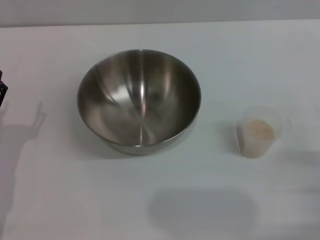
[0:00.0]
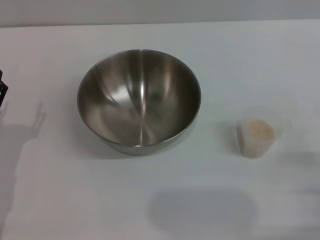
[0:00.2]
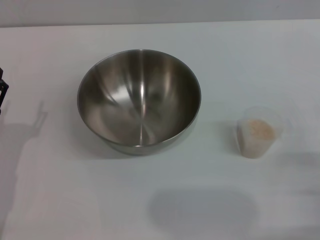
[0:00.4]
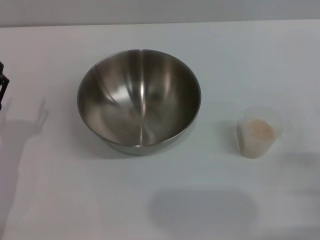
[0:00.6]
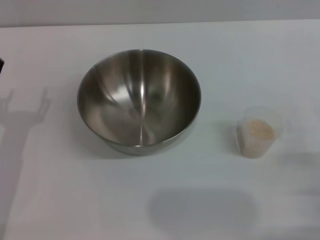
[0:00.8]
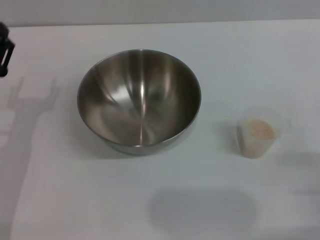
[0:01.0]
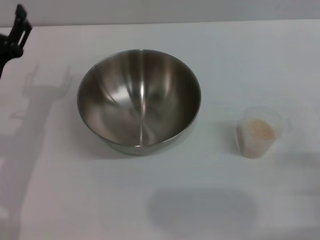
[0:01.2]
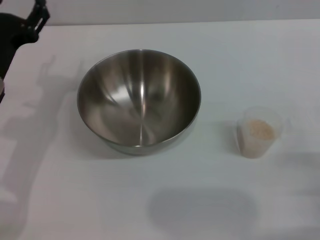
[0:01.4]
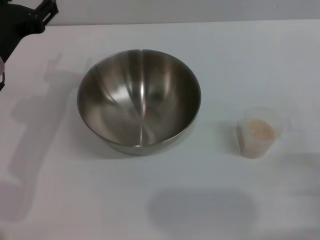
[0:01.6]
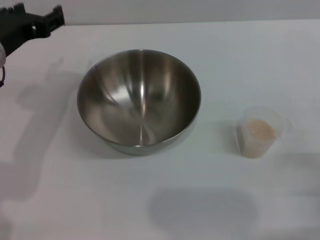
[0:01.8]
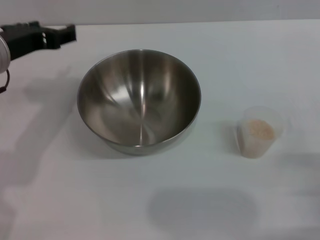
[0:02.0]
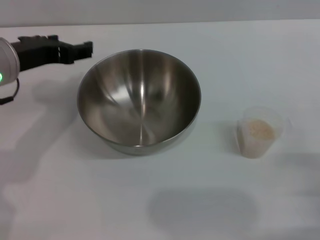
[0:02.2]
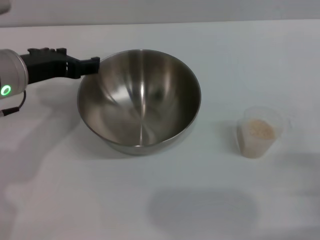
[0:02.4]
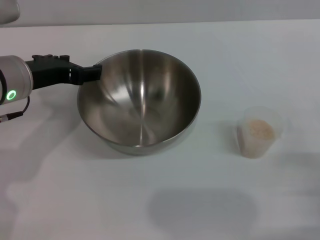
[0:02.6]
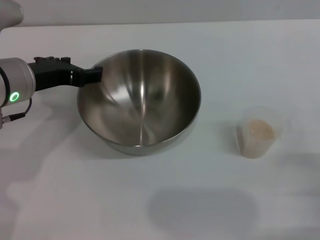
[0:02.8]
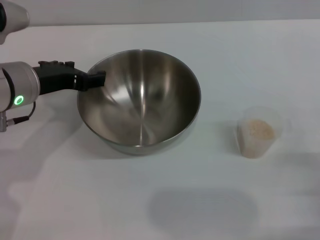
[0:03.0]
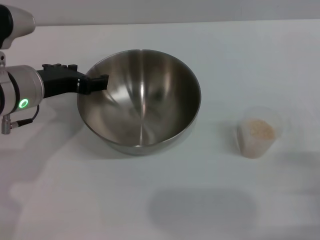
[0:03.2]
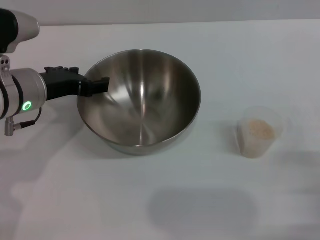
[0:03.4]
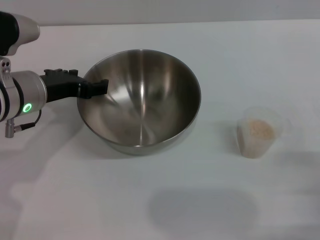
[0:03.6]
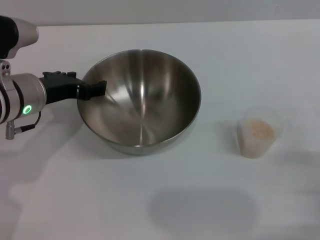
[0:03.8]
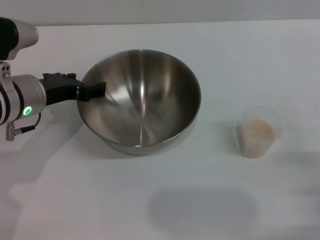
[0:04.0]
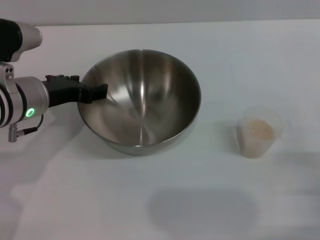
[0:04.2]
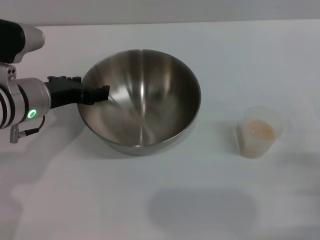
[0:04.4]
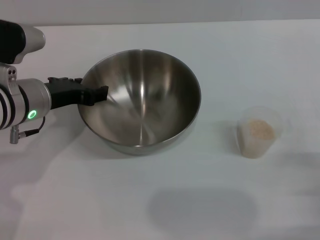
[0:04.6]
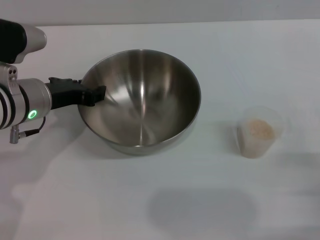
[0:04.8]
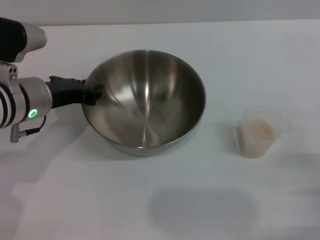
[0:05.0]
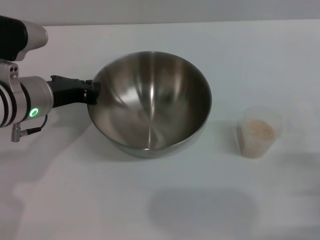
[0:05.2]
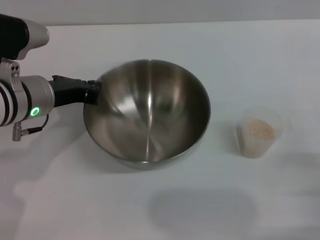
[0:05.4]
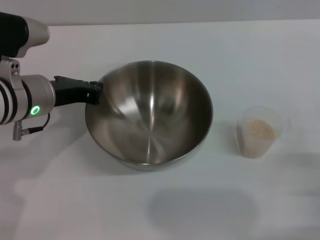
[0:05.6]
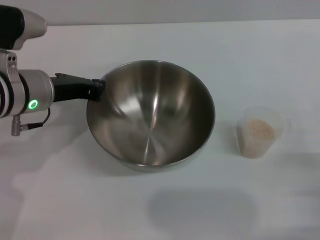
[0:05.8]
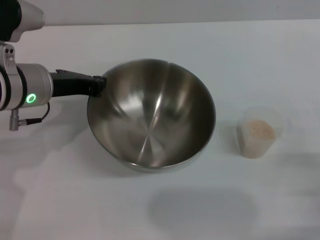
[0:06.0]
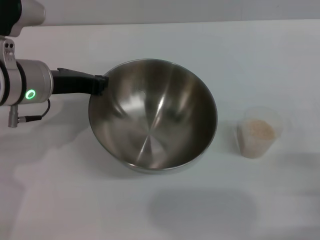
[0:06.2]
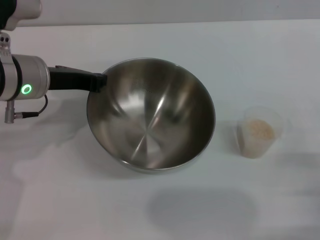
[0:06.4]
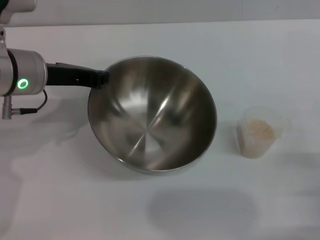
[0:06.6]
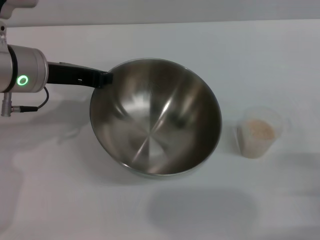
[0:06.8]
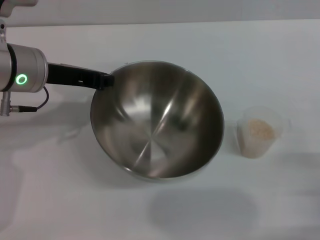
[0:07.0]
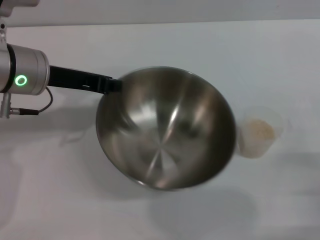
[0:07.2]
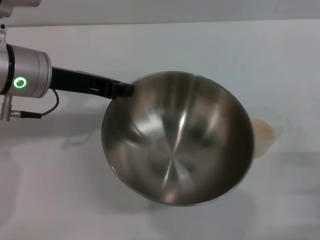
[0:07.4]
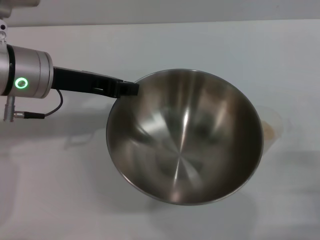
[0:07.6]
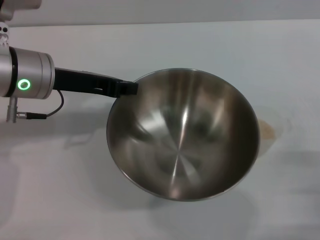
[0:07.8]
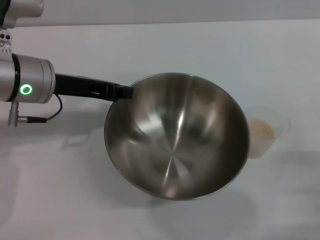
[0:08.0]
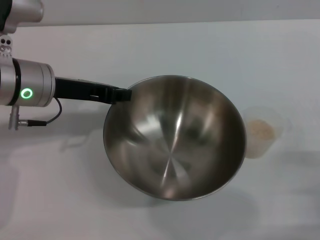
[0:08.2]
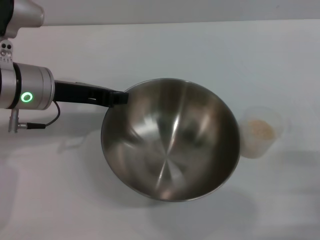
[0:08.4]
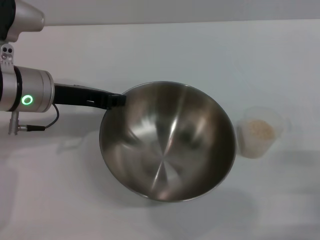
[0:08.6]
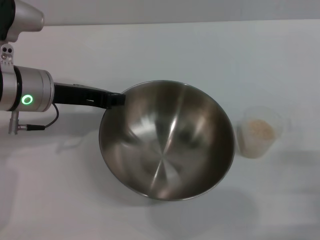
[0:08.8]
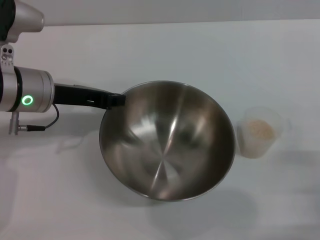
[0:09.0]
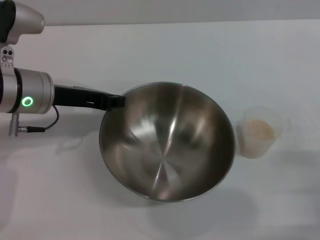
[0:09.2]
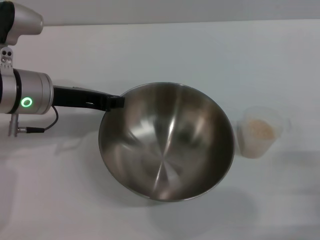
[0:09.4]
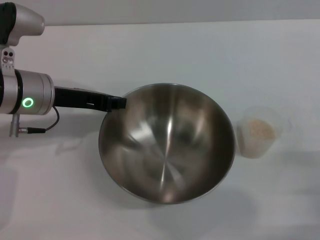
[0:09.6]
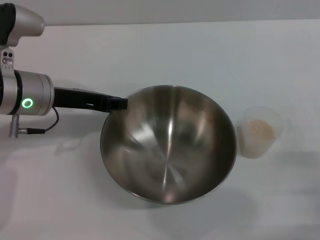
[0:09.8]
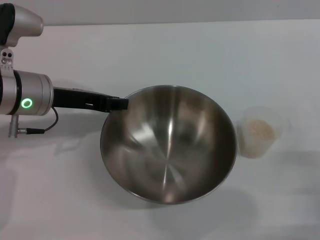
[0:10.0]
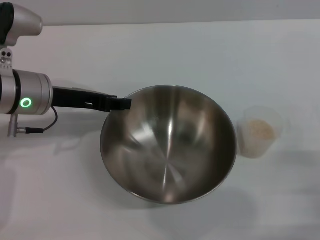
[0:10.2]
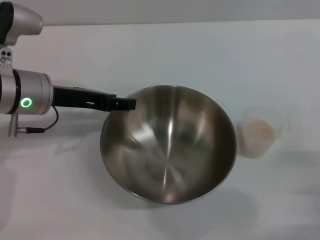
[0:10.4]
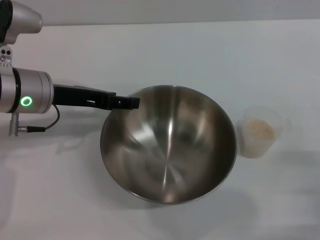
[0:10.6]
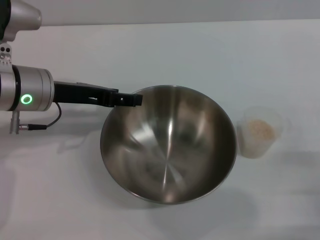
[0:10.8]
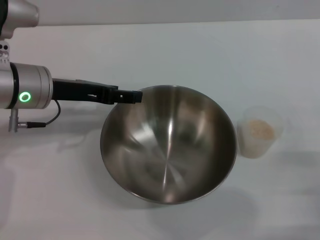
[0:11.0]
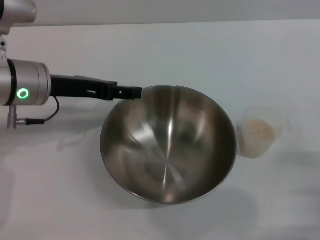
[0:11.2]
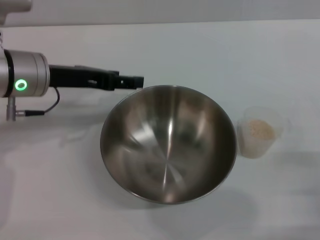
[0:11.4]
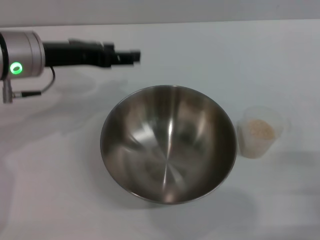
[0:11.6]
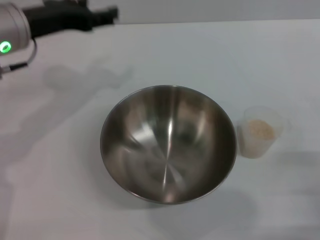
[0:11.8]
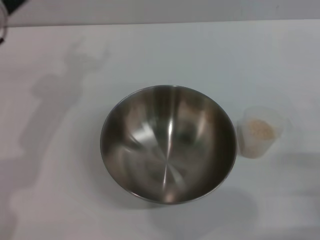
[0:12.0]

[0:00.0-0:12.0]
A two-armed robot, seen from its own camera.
Task of the whole recording: Place the bowl in the middle of the table with one hand and pour the rice from the grain cup into it with the other hand.
Step, 0:00.0 to 0:07.2: Pick up the bowl with the left gripper.
0:00.0 to 0:01.6: The left gripper travels upward, forward and to the right by approximately 15 cm.
0:03.0 to 0:04.4: The grippers move only a little.
0:04.4 to 0:06.0: The left gripper closes up.
0:09.0 to 0:10.4: The left gripper opens up.
0:10.4 to 0:12.0: The left gripper heads upward, covering about 5 cm, and opens.

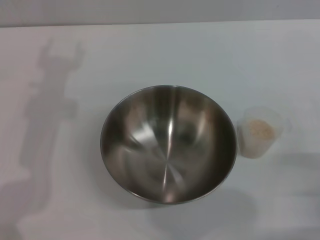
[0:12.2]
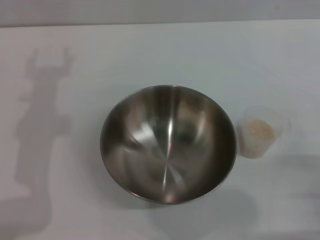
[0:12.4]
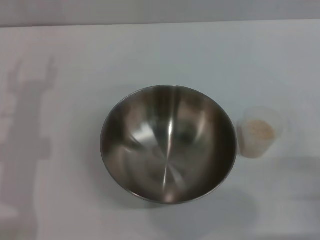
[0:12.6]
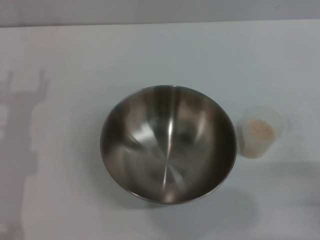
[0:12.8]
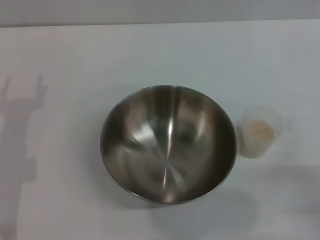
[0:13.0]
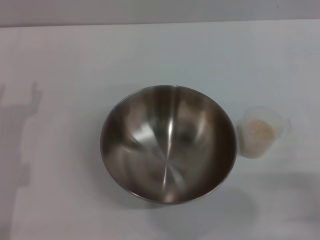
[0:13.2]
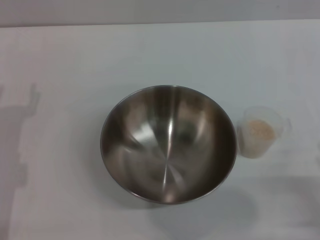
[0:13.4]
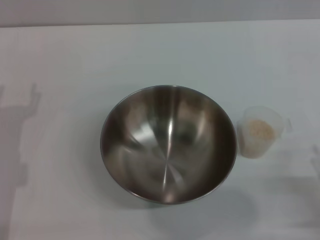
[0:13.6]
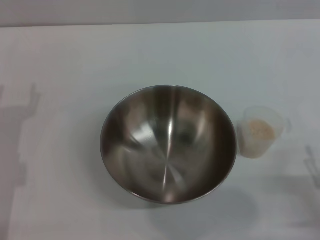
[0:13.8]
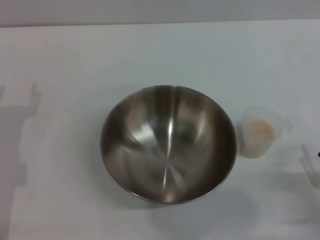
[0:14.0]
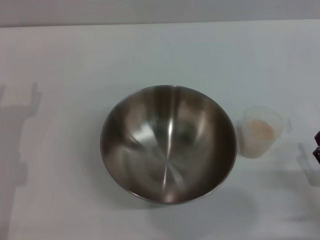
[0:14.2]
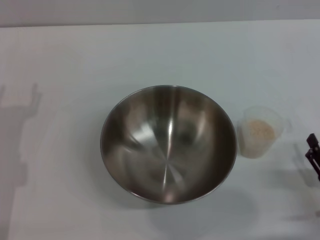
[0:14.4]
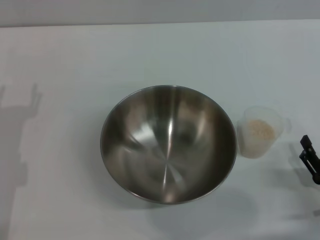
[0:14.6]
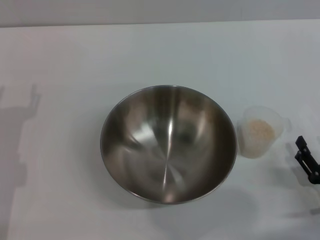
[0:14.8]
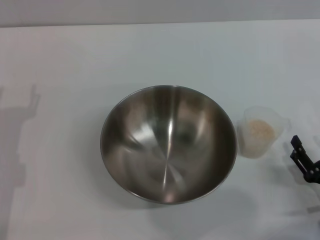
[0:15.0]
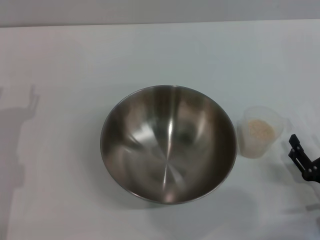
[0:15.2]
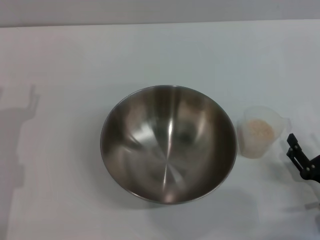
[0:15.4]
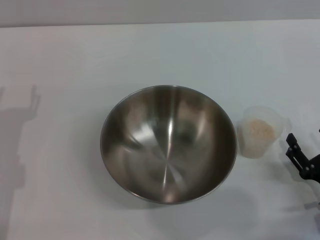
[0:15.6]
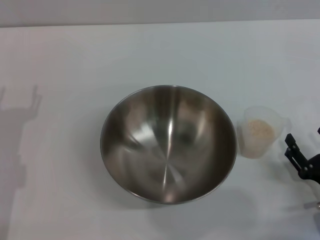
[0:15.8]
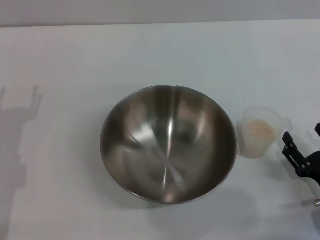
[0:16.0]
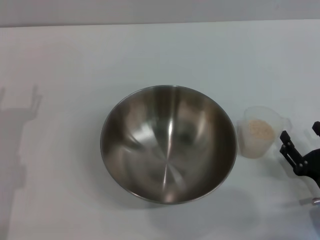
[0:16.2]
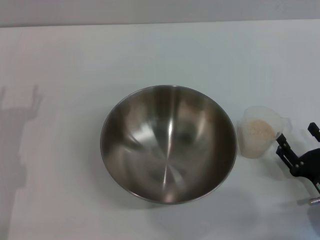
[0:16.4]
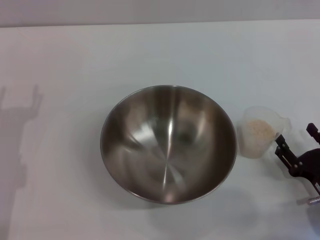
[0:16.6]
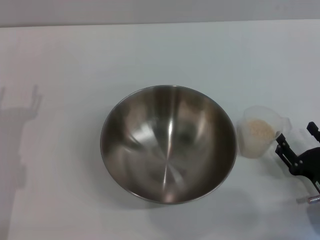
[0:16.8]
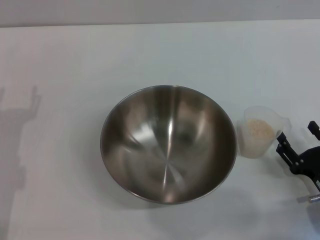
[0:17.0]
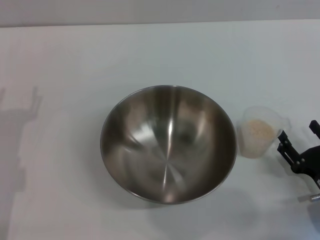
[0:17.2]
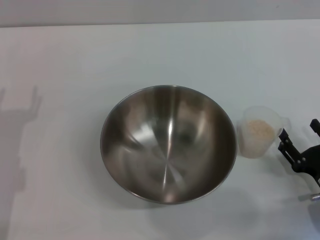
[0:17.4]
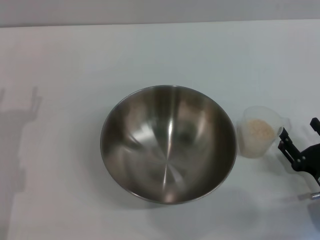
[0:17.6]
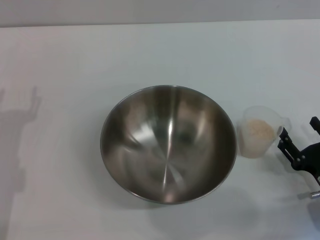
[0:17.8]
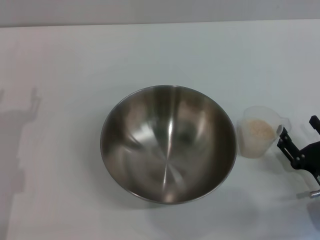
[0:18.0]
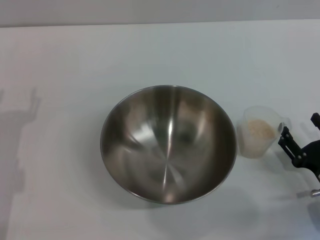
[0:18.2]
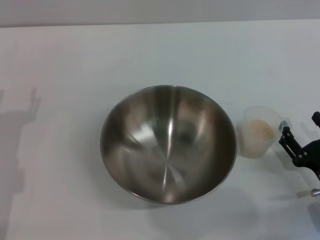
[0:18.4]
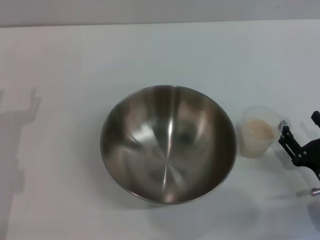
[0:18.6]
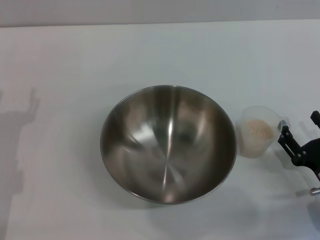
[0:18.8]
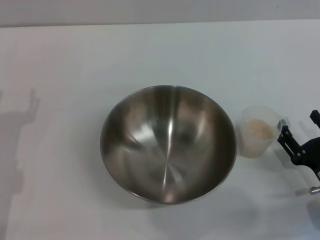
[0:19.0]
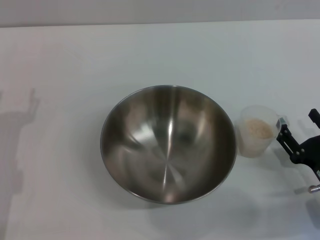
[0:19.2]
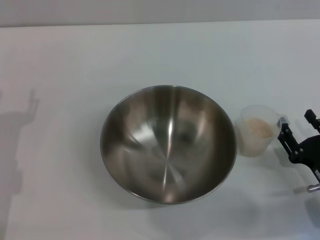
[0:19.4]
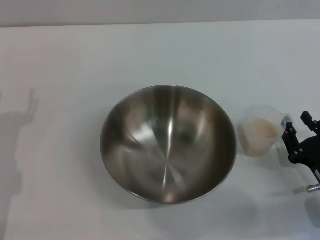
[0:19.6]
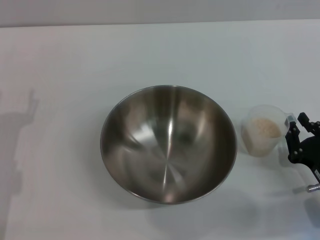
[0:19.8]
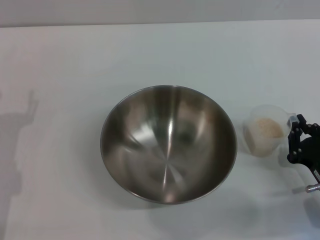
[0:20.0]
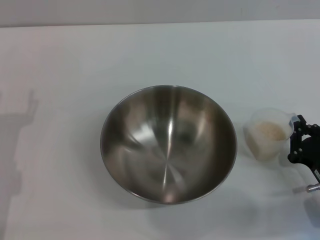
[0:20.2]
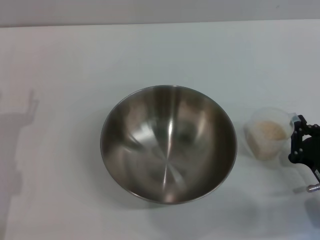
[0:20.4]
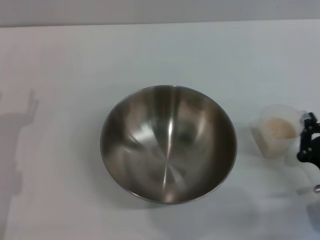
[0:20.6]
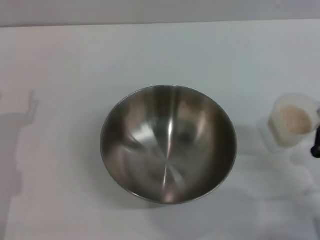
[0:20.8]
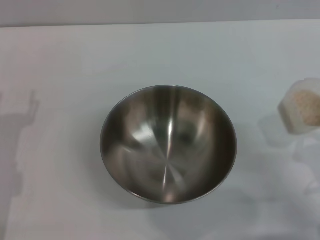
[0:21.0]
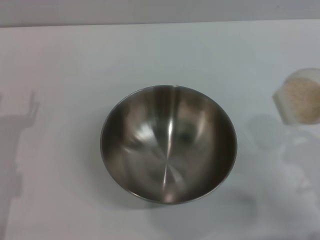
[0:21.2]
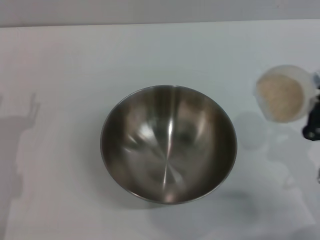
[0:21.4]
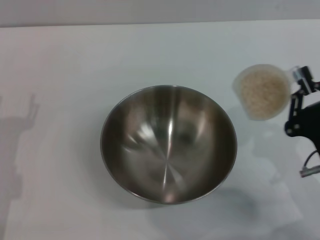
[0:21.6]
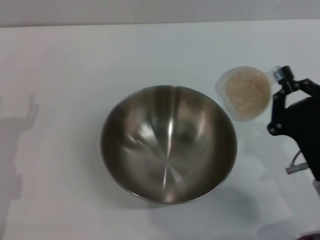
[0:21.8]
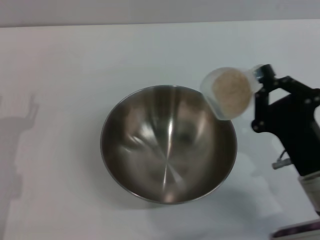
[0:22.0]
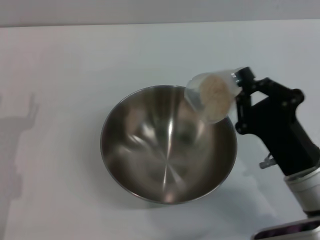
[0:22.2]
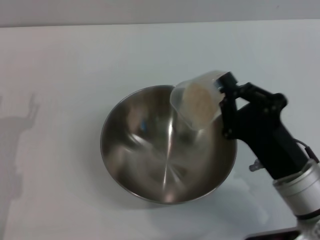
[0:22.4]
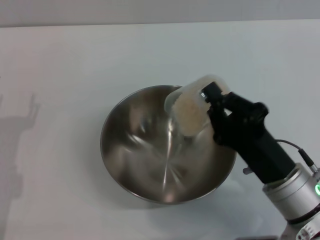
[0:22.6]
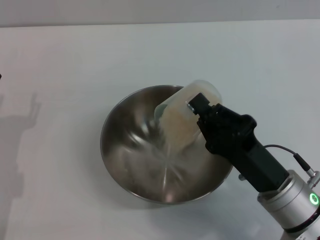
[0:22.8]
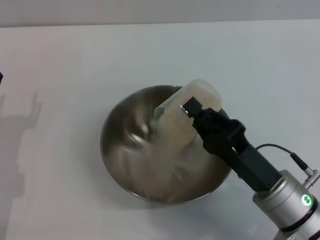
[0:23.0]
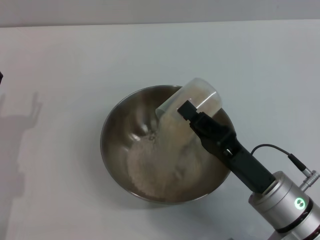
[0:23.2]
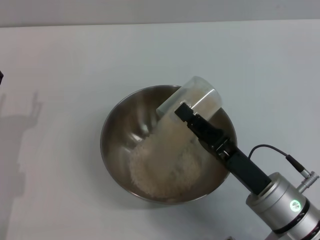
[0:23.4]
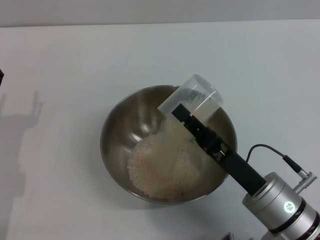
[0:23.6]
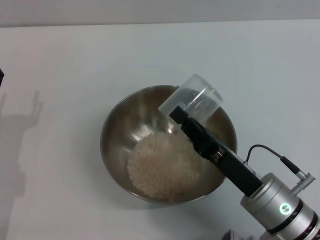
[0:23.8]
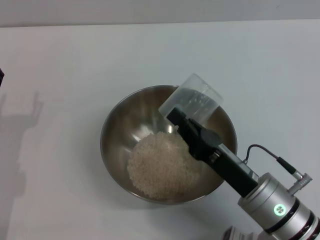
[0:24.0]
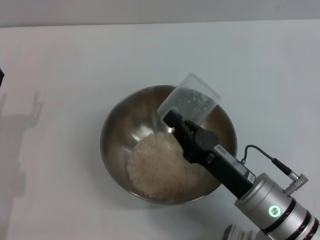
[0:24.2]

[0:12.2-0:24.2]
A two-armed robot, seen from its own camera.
Task of the whole recording: Place the bowl in the middle of the table with one hand and pour the rice from the grain cup into it with the other hand.
Step, 0:14.6 to 0:21.0: Pick up the cup with rice in it with the right gripper.
0:13.8 to 0:16.6: The grippers make only small movements.
0:16.6 to 0:18.2: Neither gripper changes place.
0:18.2 to 0:19.8: The right gripper closes.
0:19.8 to 0:21.2: The right gripper heads upward, covering some 5 cm, and closes.
0:21.2 to 0:22.6: The right gripper is displaced to the left by about 10 cm.
